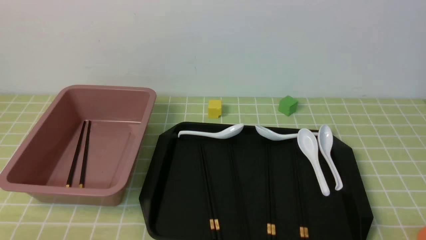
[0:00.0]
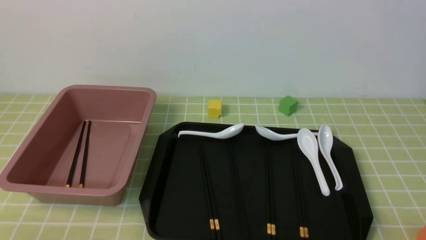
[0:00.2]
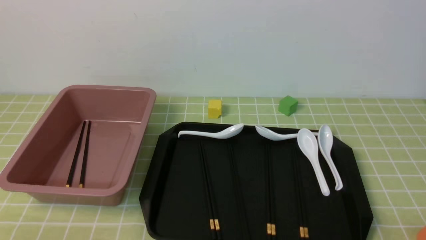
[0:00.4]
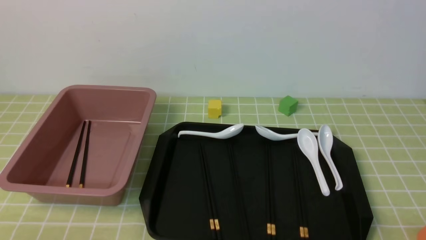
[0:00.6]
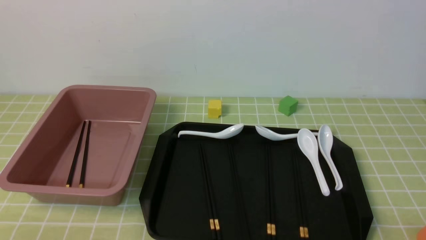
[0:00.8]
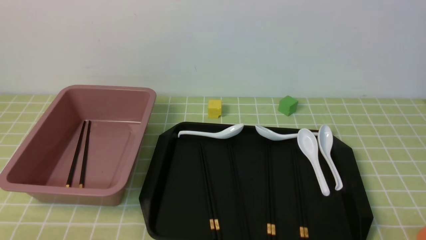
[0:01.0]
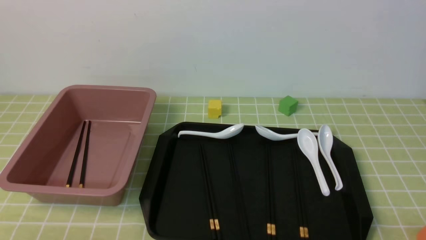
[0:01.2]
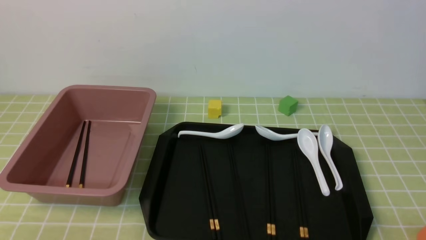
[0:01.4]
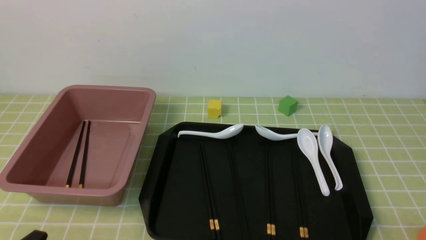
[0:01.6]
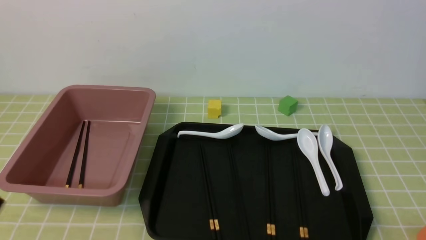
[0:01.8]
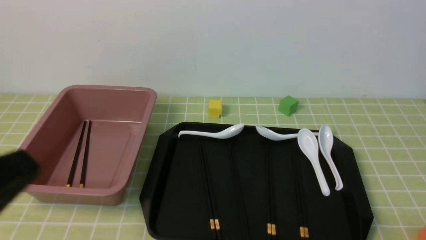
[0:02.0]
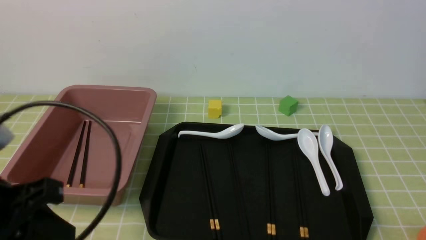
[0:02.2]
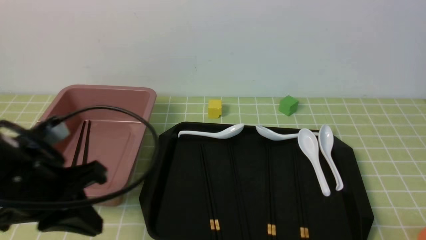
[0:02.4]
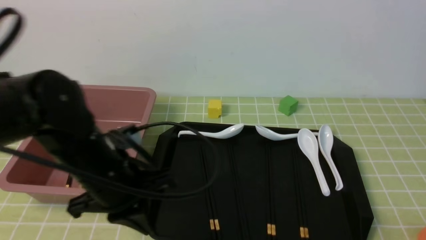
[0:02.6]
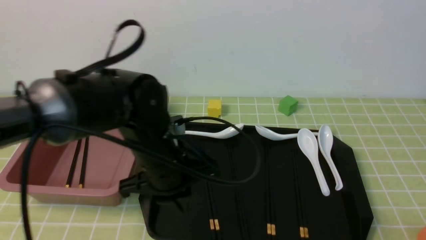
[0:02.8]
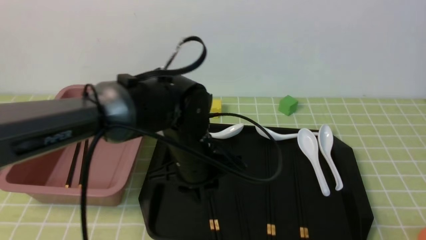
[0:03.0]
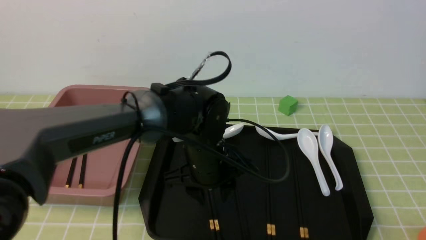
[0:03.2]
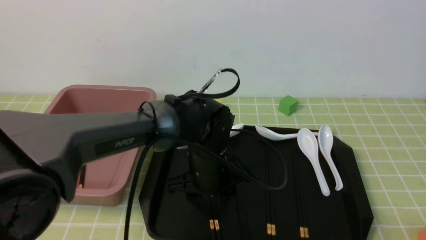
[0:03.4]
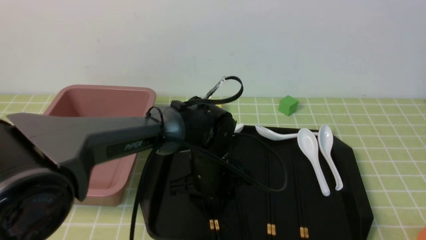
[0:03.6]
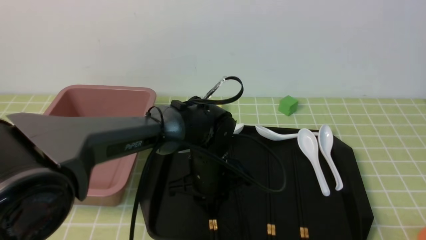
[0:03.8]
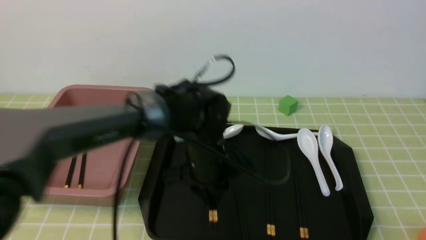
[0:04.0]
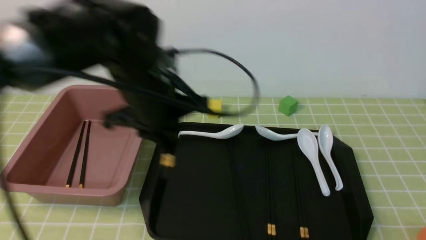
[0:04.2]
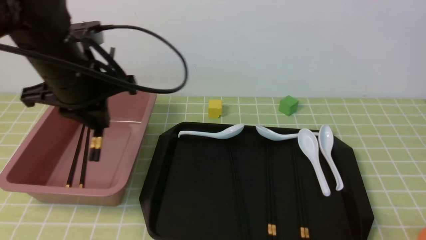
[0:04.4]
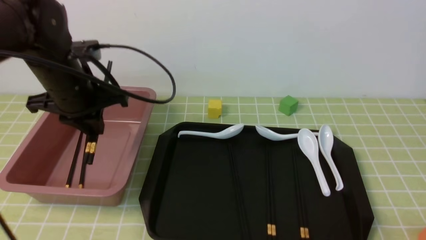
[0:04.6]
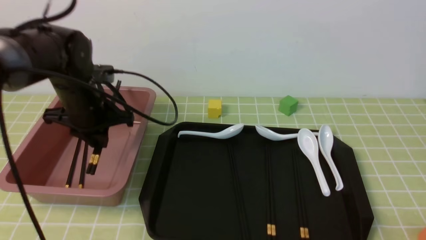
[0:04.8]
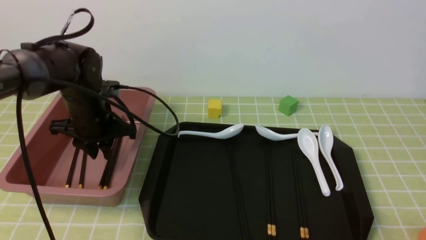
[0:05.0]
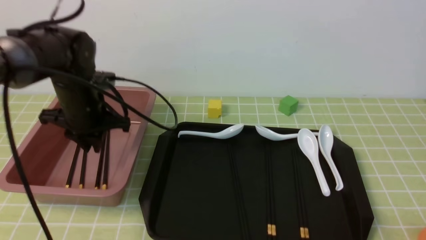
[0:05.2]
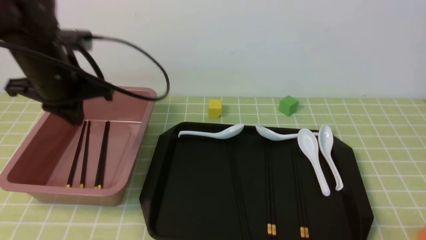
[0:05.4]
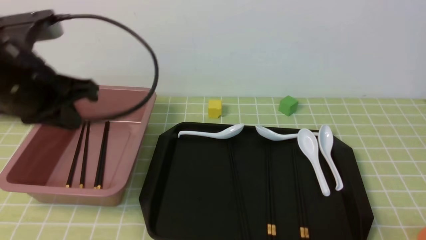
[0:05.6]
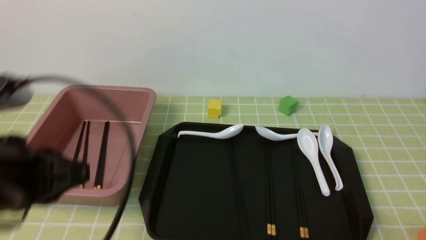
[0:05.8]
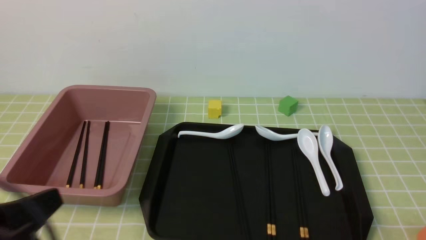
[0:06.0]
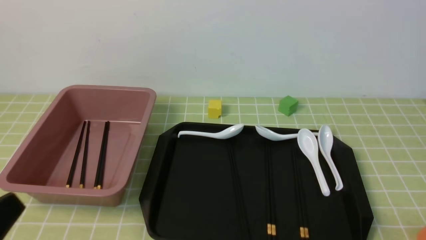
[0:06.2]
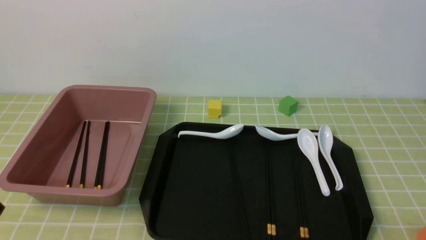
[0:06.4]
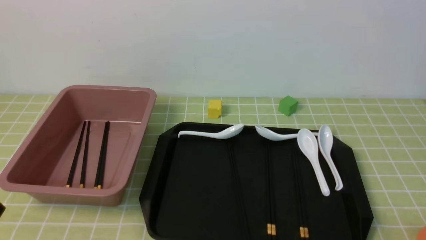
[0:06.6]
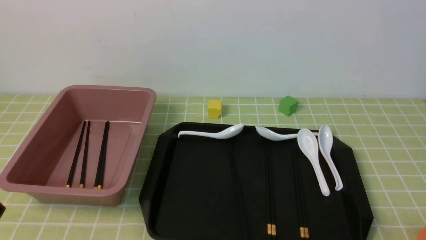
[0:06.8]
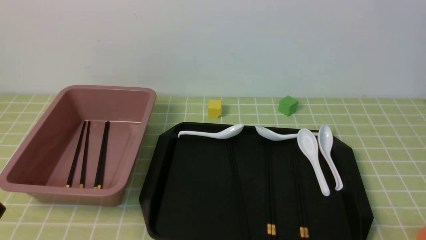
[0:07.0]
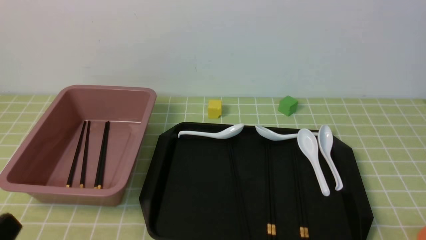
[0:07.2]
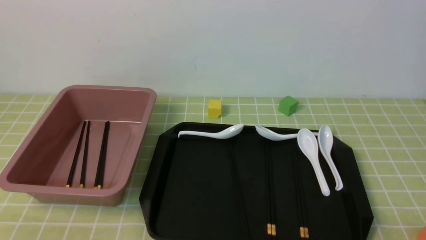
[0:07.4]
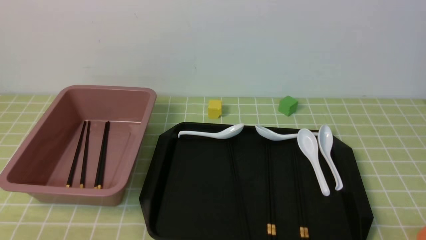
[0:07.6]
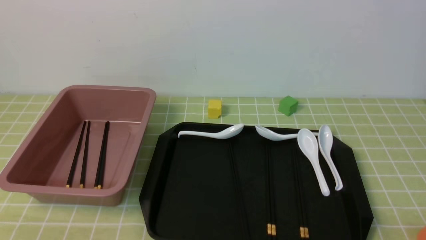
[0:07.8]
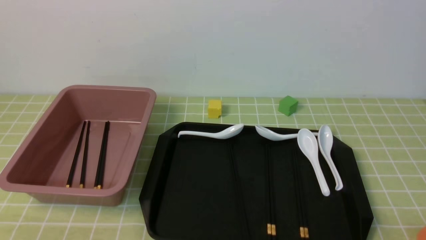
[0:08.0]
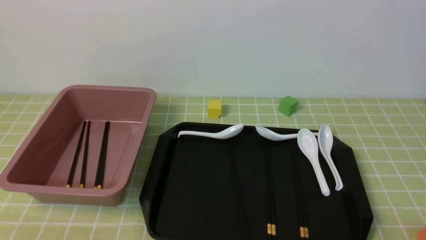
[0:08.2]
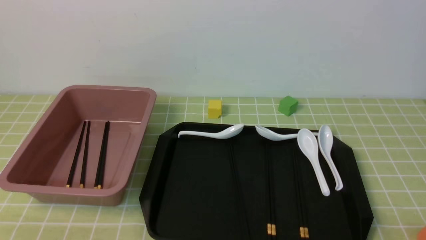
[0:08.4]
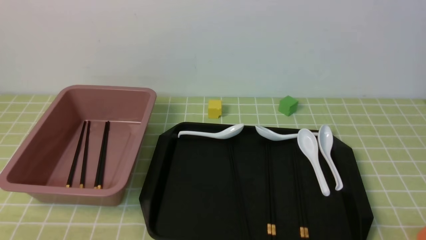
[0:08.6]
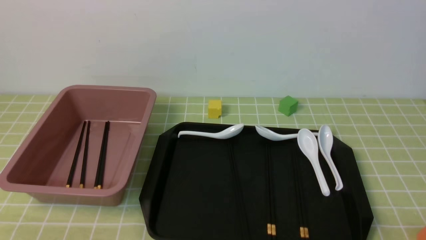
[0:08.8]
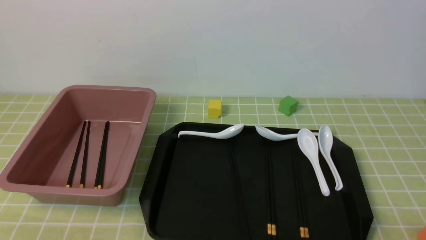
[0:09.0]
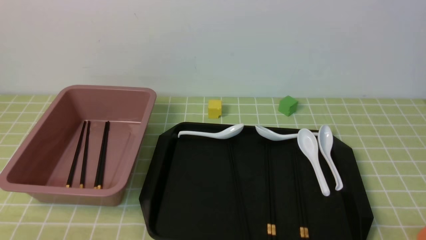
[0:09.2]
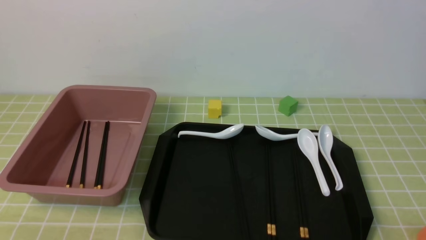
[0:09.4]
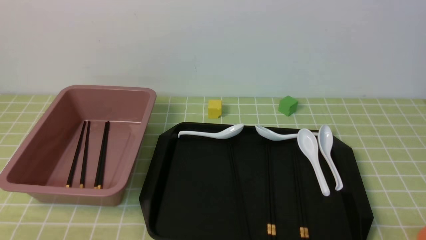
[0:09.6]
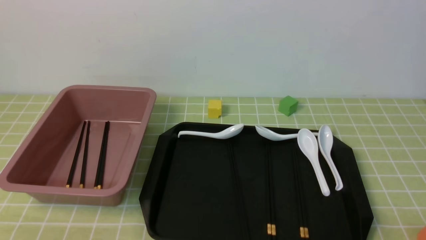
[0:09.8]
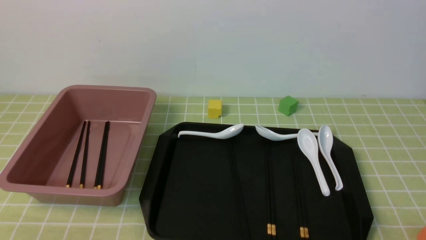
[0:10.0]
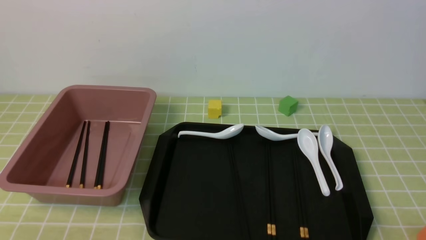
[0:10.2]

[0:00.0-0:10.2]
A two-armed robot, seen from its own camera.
Step, 0.0 to 4.0 s: use the left arm to grab a pair of chopsticks.
Step, 4.2 to 5.2 s: use the left arm to put the chopsticks into the lunch box.
1.4 to 3.0 s: The left gripper goes about 30 cm forward and to the right.
3.0 to 4.4 s: The left gripper moves upward and to the left, about 10 cm, and opens and closes again.
4.4 to 5.8 s: The left gripper shifts some 15 cm backward and to the left, and closes up.
5.8 to 7.2 s: The left gripper is displaced backward and downward by some 20 cm.
8.8 to 10.2 s: Both grippers stay about where they are.

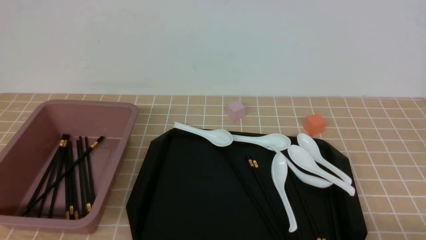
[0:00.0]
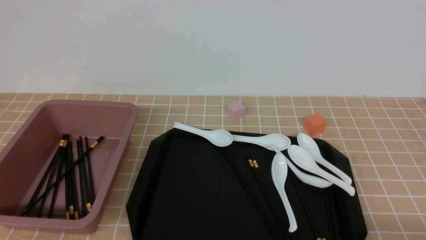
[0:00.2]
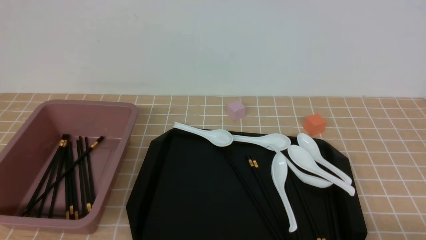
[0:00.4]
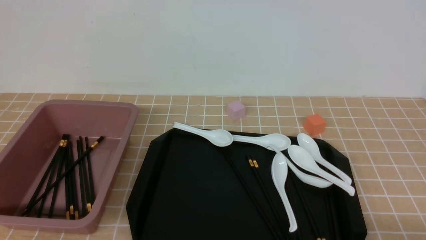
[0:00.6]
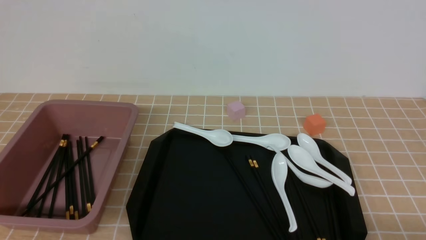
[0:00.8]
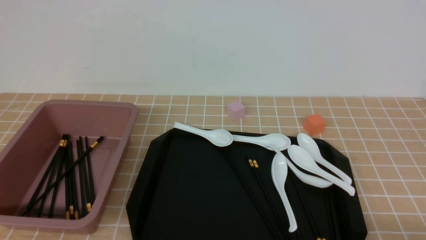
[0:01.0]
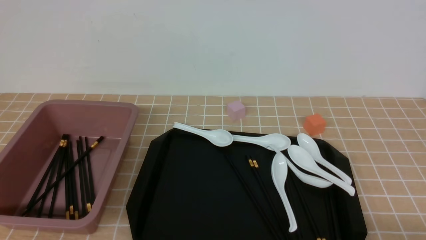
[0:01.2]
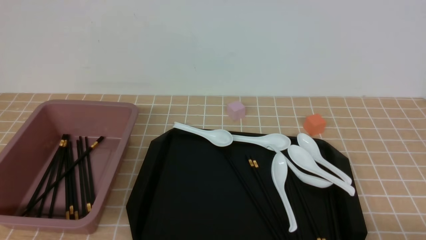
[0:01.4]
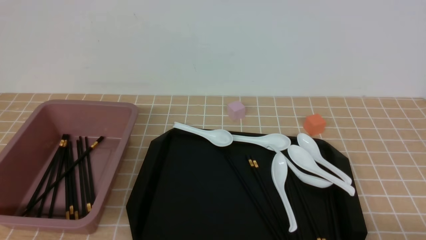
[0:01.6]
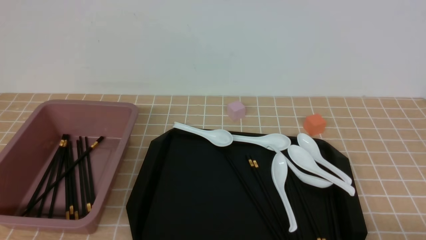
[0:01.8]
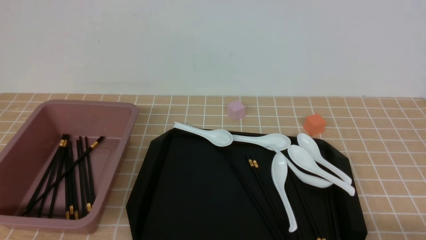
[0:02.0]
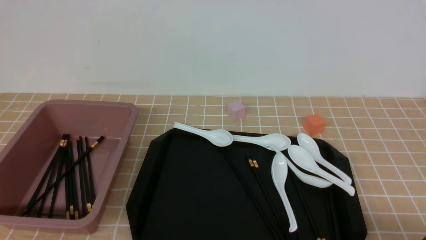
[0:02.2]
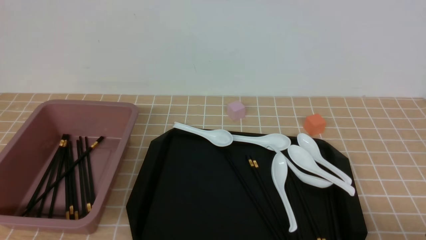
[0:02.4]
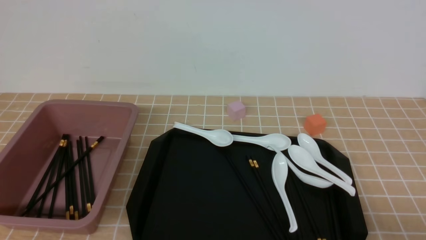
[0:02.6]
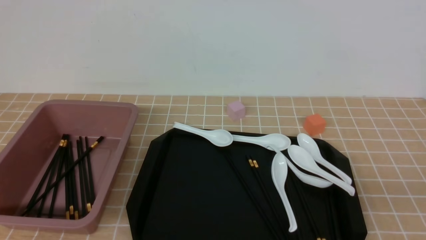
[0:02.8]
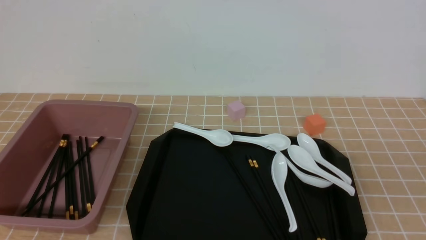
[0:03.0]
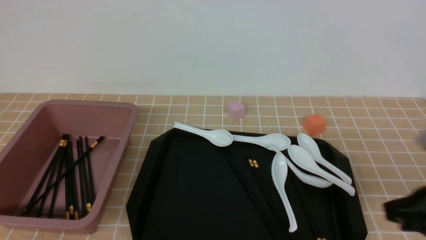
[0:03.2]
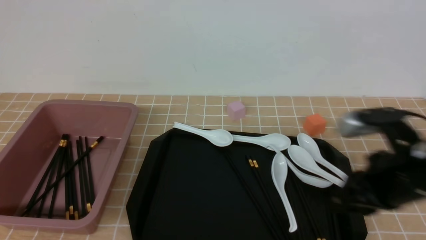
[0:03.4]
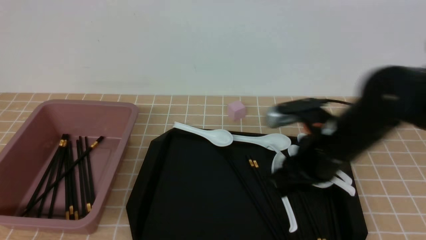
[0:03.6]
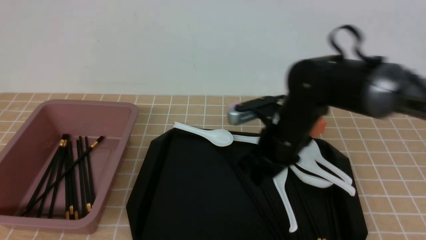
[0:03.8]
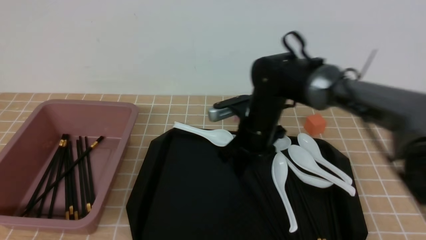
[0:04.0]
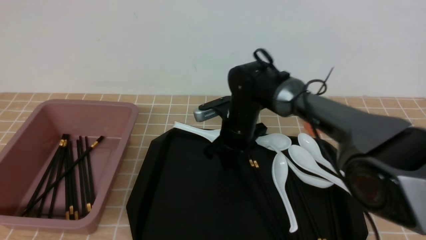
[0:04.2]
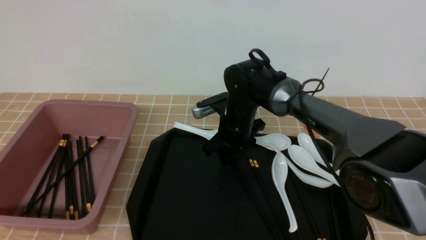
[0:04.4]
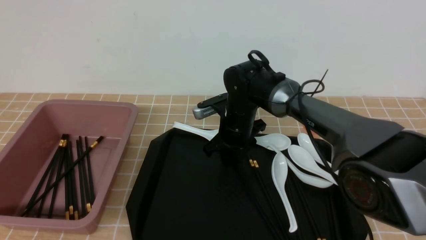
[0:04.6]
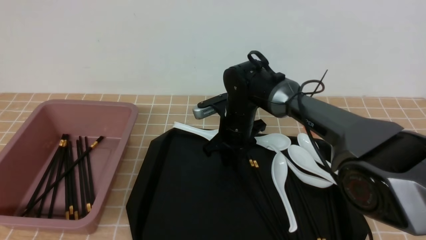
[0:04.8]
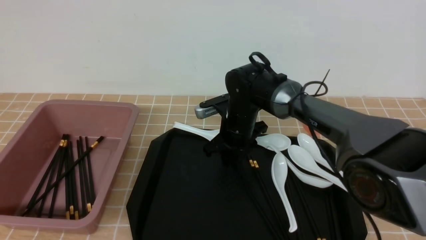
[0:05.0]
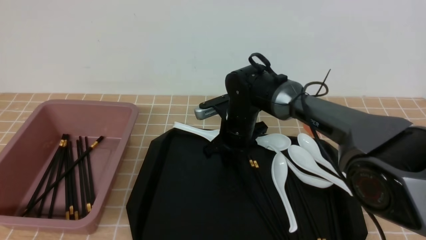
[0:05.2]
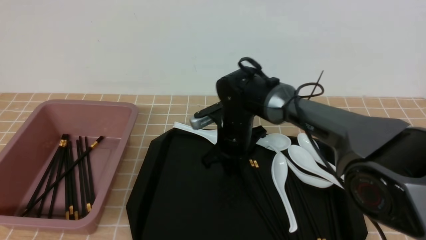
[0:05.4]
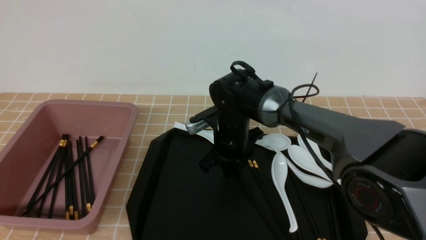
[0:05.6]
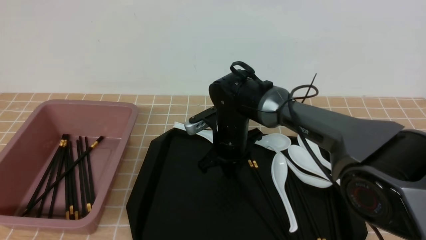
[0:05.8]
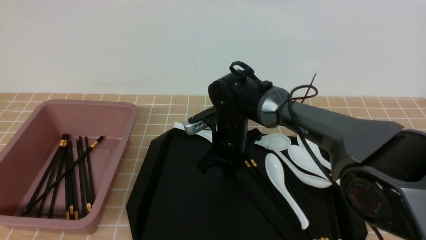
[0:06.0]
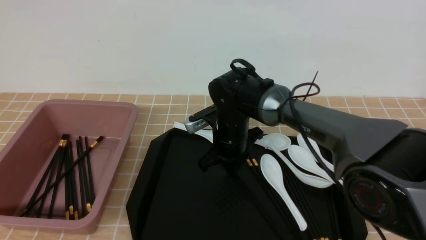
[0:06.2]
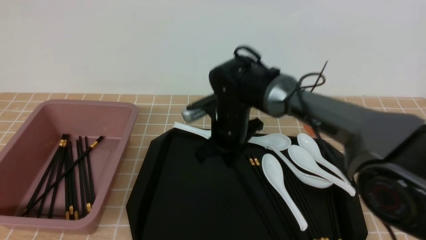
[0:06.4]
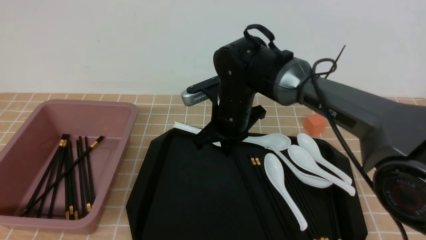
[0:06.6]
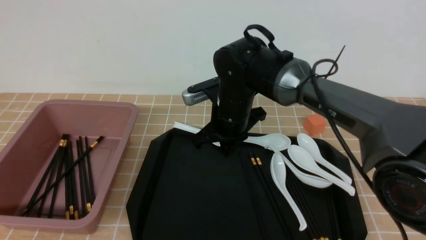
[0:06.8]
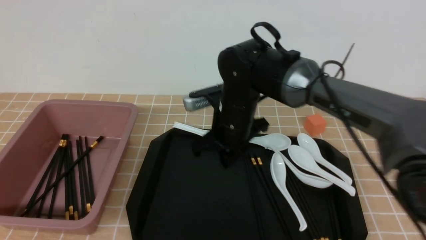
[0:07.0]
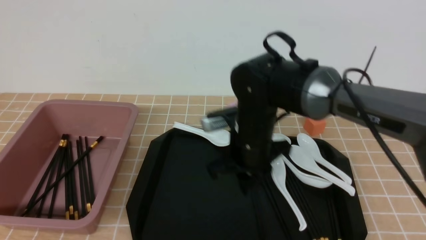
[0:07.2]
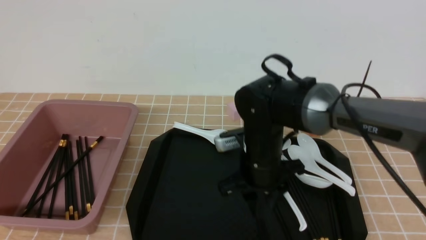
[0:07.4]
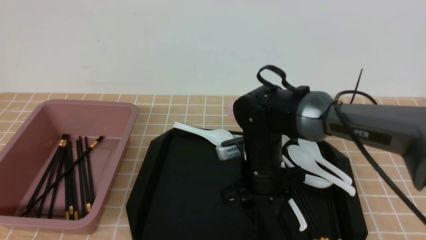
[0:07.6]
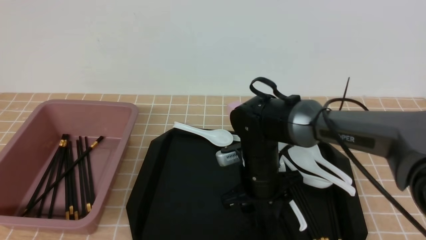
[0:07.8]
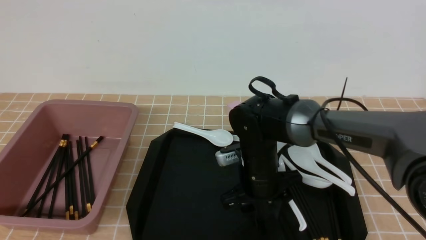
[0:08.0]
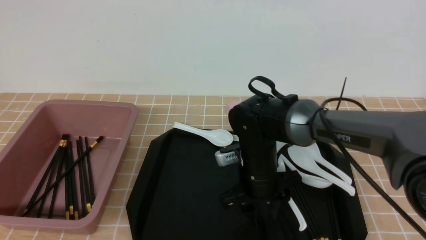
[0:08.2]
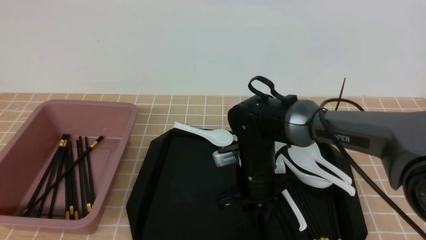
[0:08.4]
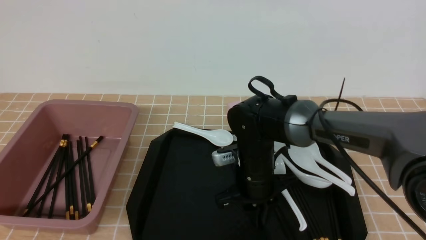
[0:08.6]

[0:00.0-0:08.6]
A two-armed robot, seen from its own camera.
0.0 to 1.4 s: Neither gripper changes place.
2.8 to 4.4 s: The right gripper shifts some 50 cm forward and to the left, and opens up.
4.4 to 5.8 s: The right gripper closes up.
5.8 to 7.2 s: The right gripper shifts about 10 cm backward and upward, and closes, then reopens.
7.2 to 8.6 s: The right gripper moves downward, approximately 5 cm, and opens, then closes once more.
